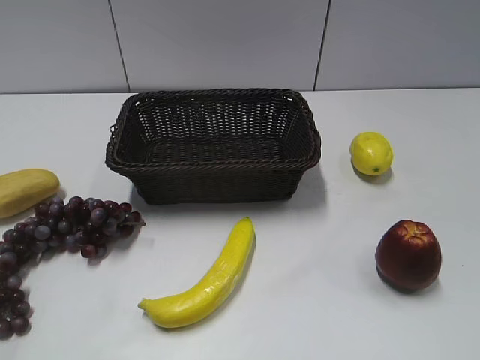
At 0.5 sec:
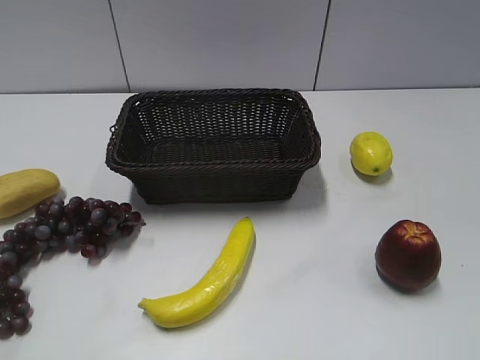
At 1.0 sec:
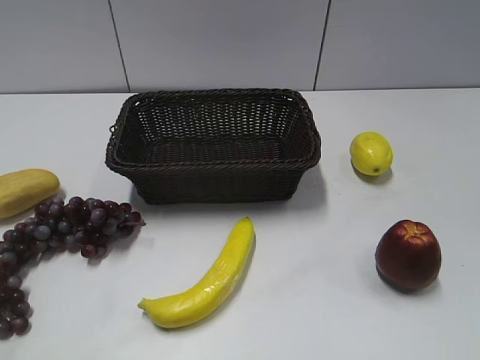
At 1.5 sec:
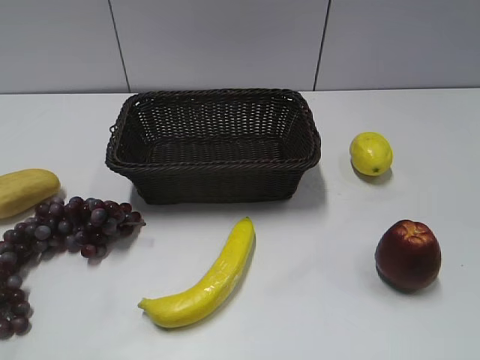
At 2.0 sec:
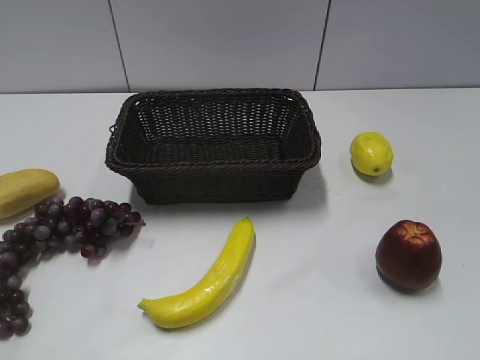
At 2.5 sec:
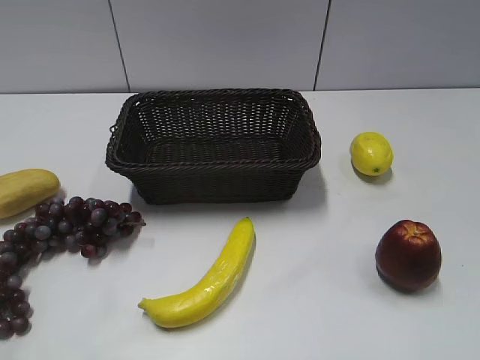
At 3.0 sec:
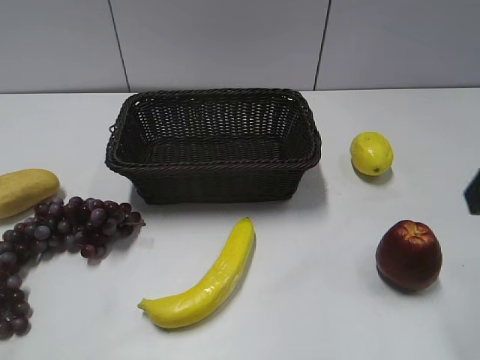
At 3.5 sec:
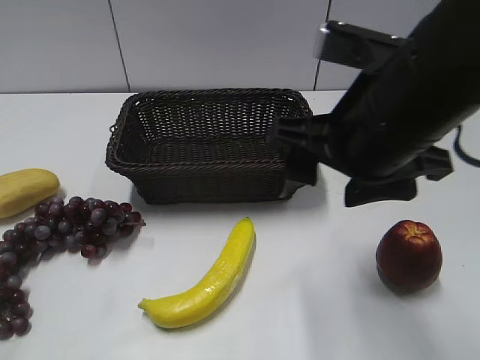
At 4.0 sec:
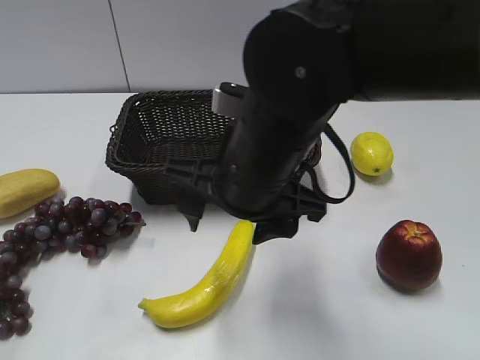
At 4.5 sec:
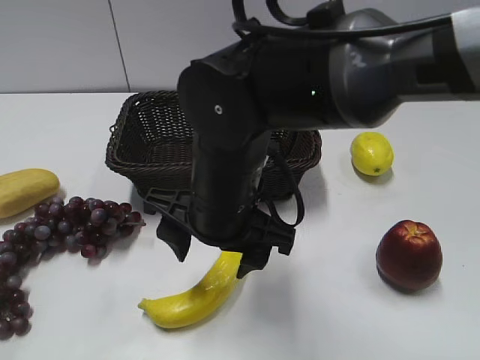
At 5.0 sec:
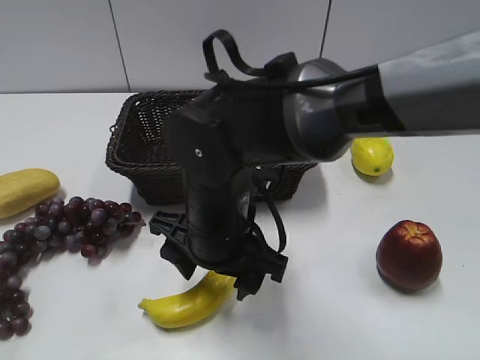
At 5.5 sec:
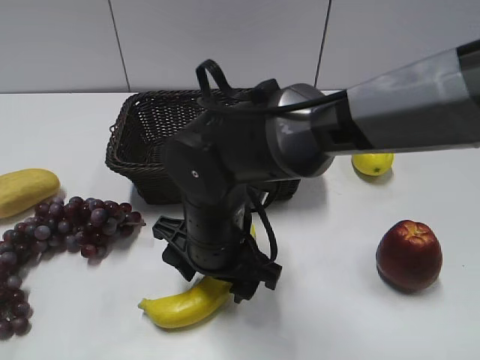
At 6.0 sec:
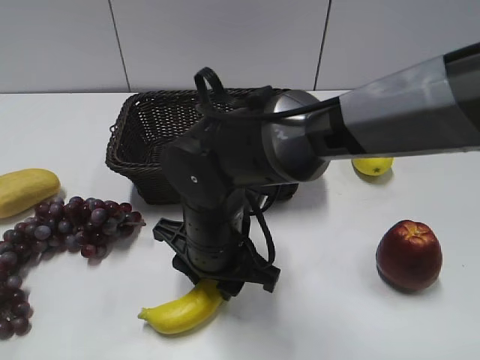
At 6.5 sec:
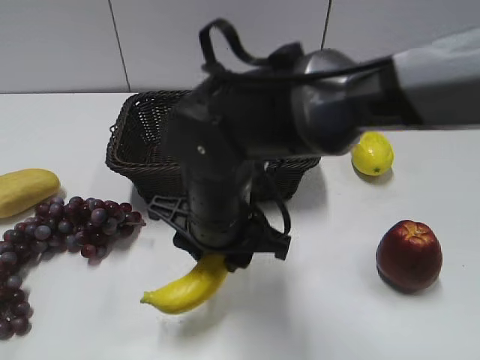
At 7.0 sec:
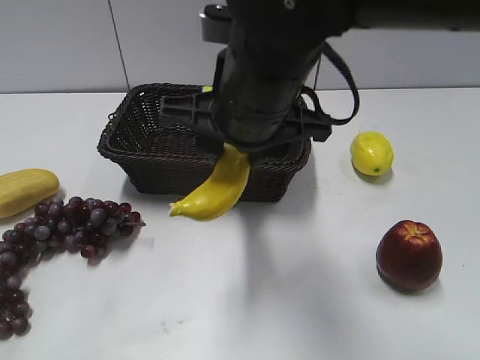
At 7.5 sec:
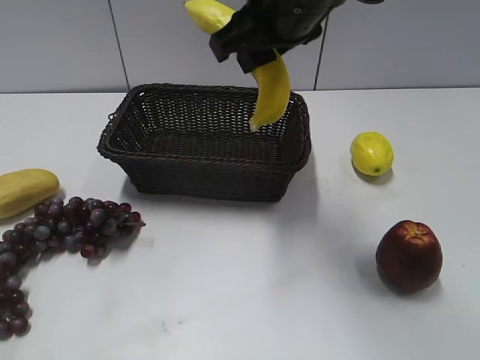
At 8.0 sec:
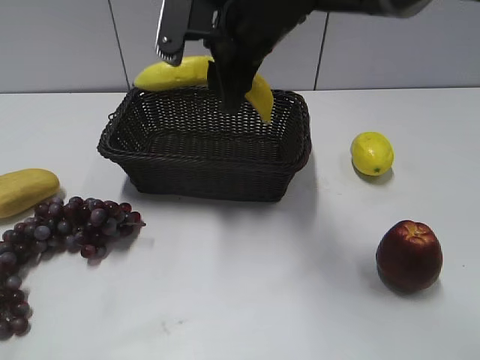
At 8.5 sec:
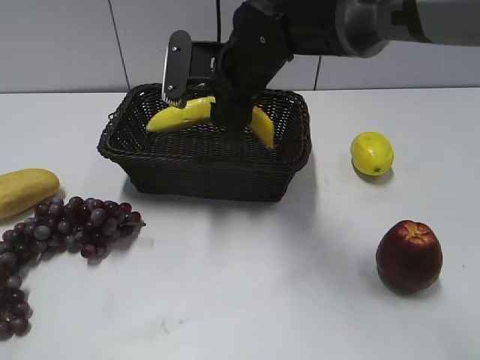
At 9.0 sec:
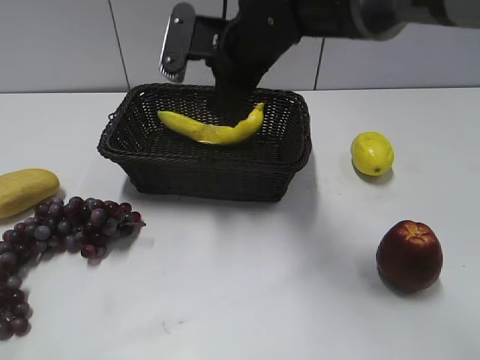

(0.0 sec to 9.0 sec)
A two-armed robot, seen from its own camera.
Step, 3.0 sec - 5.5 sec: Grasp the banana with right gripper.
Step, 6.5 sec - 8.5 sec: Place the banana in the basket with right gripper.
2.0 sec - 4.5 sec: The left gripper closes its fingers, while the right gripper is displaced to the left and forward by about 35 cm.
4.5 sec - 7.0 sec: The right gripper heads upward, covering some 10 cm, and closes.
7.0 sec - 9.0 sec: The right gripper moves forward, approximately 15 cm, and opens.

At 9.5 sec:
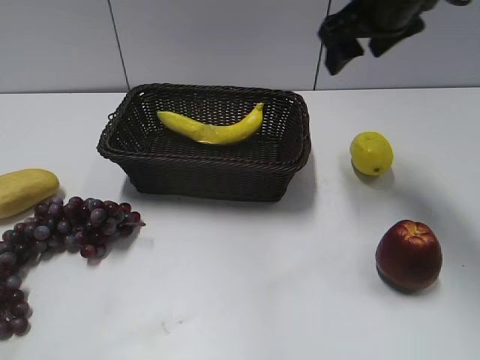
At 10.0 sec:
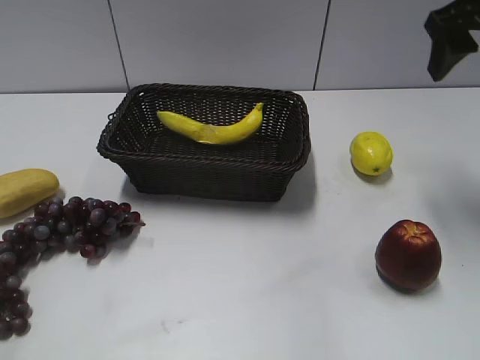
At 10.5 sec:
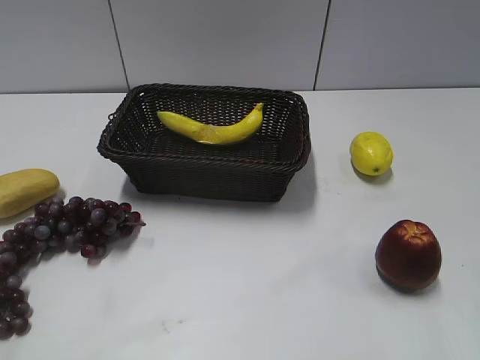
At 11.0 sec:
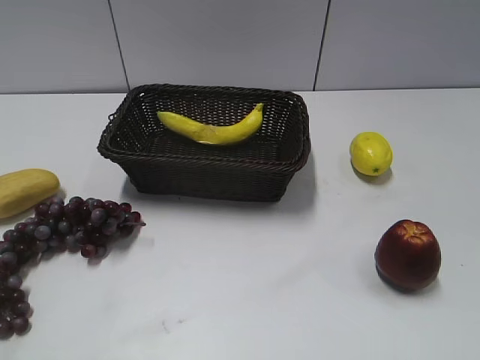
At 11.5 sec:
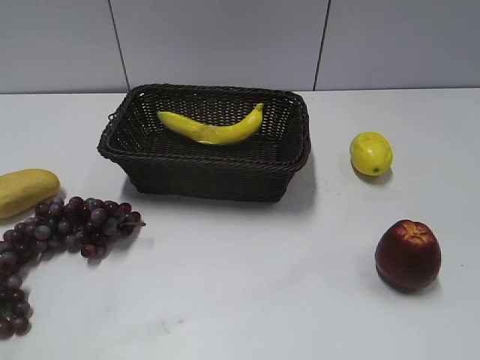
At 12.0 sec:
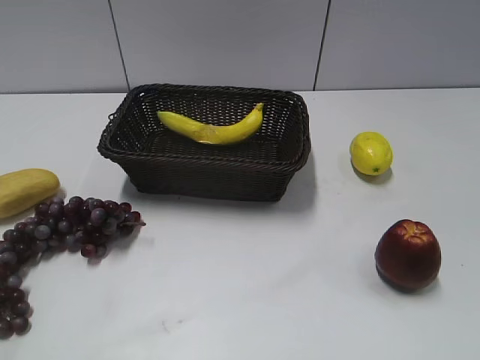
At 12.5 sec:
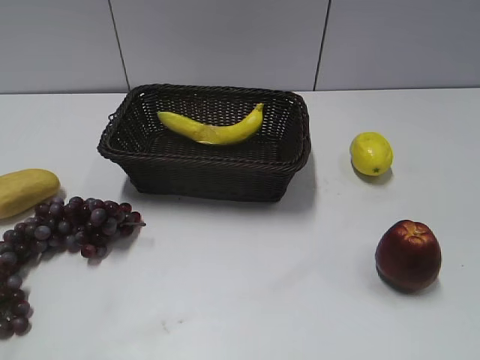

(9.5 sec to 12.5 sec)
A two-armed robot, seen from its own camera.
9.5 sec - 11.0 sec: The right gripper heads backward and to the right, covering roughly 35 cm.
